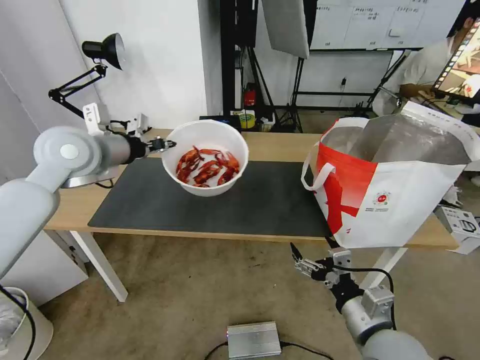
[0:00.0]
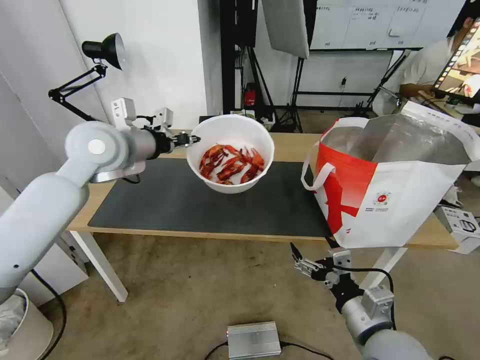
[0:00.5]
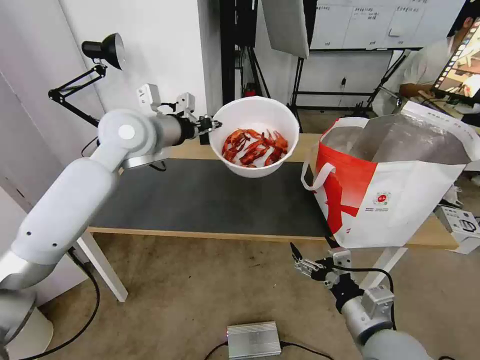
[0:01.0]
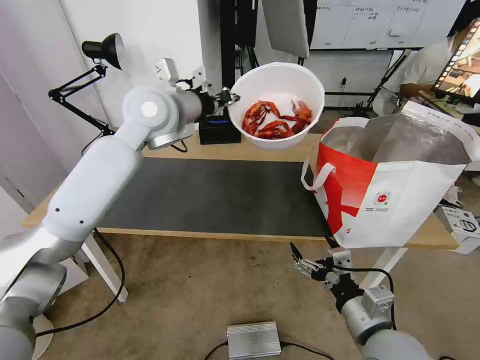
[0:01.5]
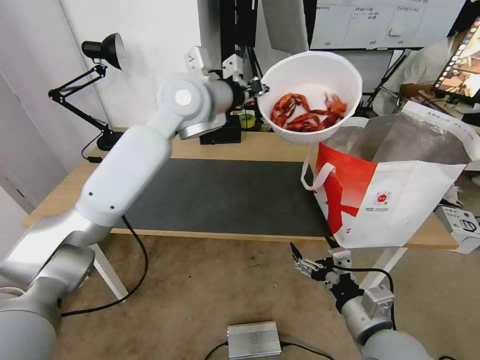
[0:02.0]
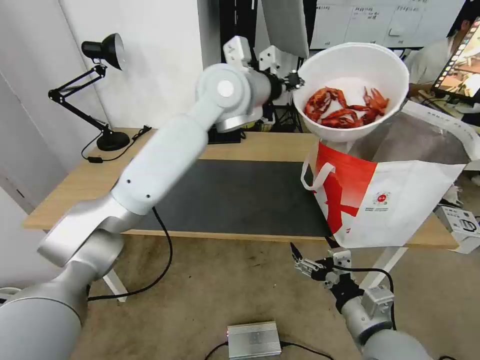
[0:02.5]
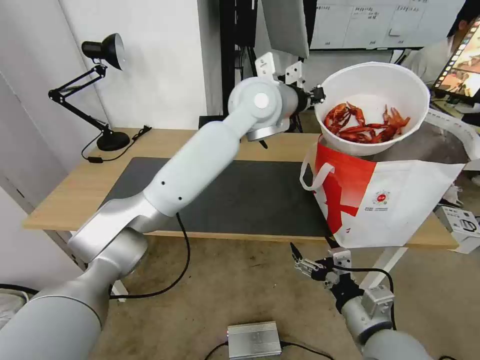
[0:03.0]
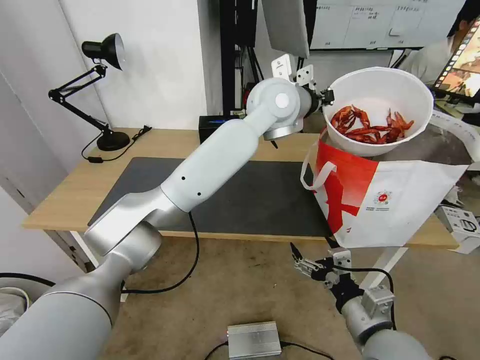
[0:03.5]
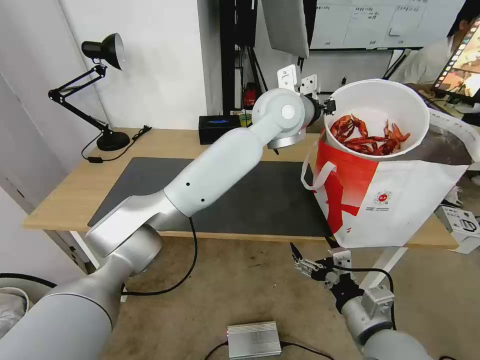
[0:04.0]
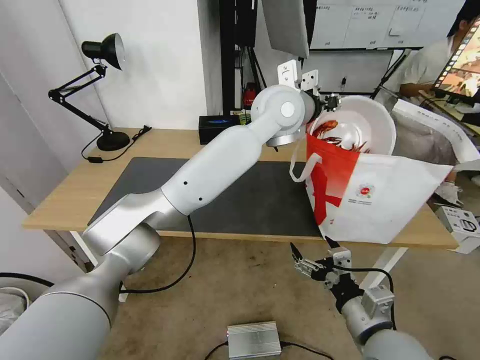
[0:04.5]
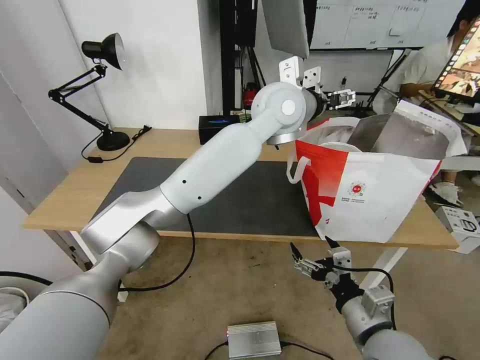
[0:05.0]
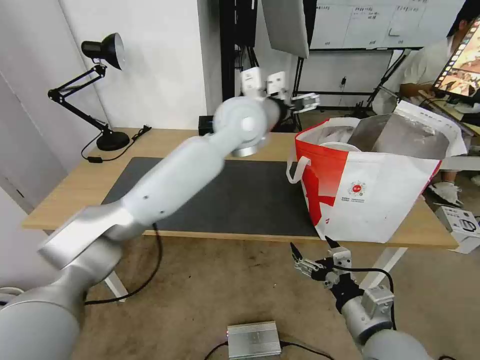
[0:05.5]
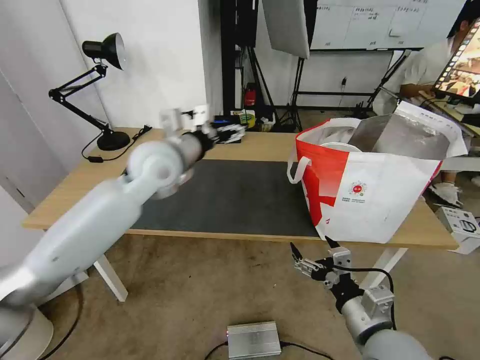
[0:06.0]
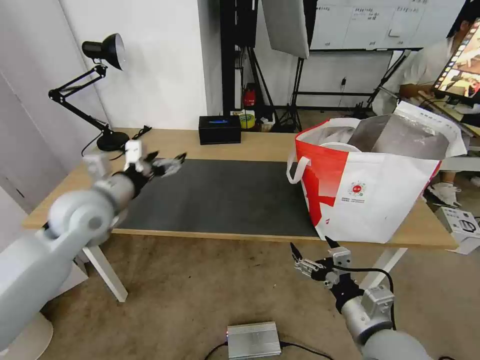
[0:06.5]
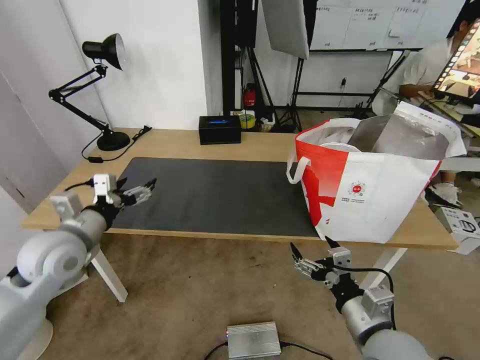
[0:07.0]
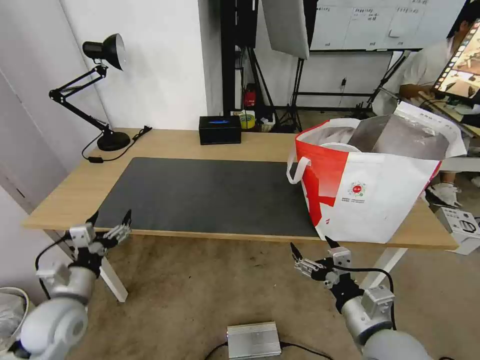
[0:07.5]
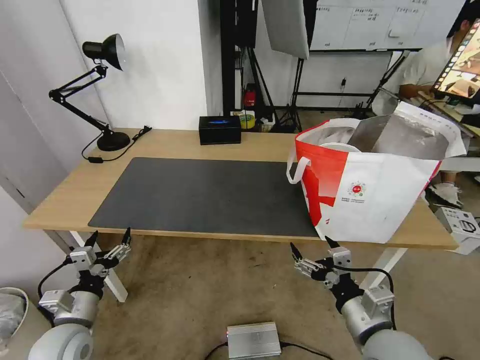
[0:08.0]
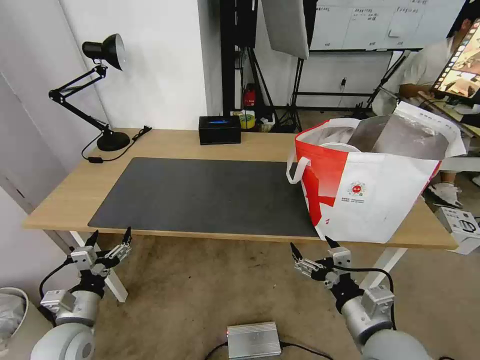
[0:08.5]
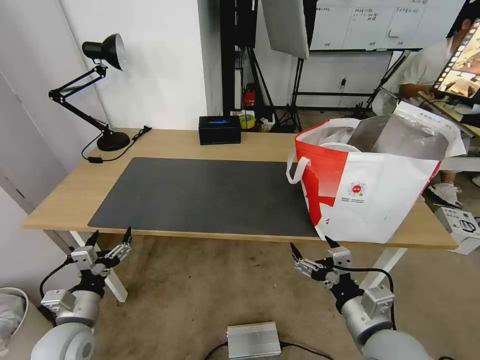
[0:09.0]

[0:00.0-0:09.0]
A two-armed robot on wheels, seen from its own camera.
Task of the whole recording: Pick up the trash from the table and place it into the takeout bag.
0:00.0 to 0:02.0: The left gripper shifts roughly 20 cm to the right.
0:02.0 to 0:04.5: The left gripper is displaced to the right by approximately 15 cm, and opens.
0:04.5 to 0:07.0: The left gripper goes roughly 50 cm to the left, downward and backward, and opens up.
0:07.0 to 0:09.0: The left gripper goes approximately 20 cm downward and backward.

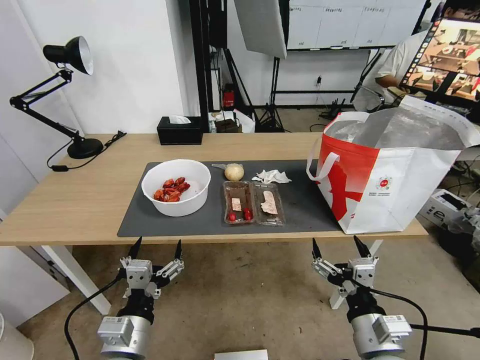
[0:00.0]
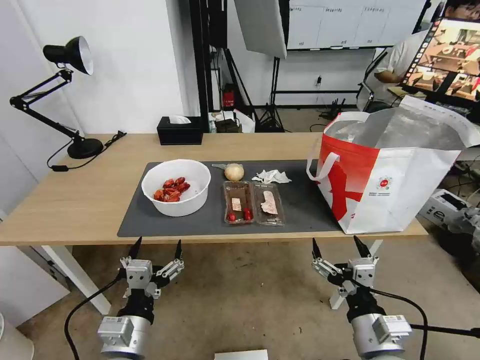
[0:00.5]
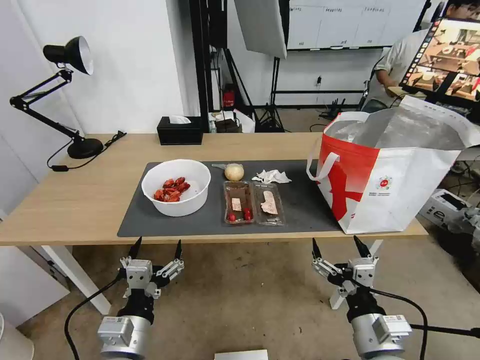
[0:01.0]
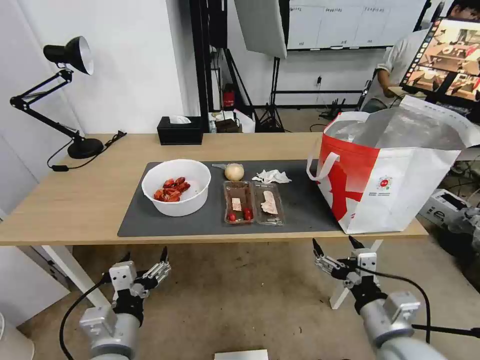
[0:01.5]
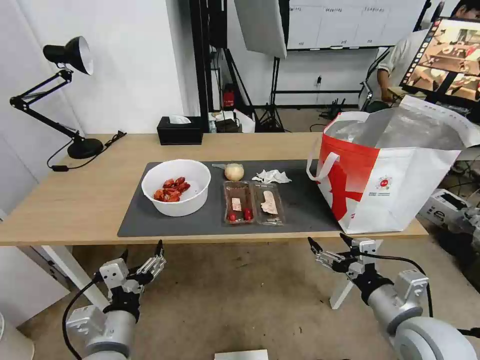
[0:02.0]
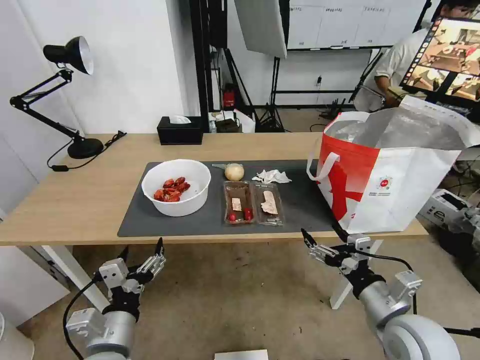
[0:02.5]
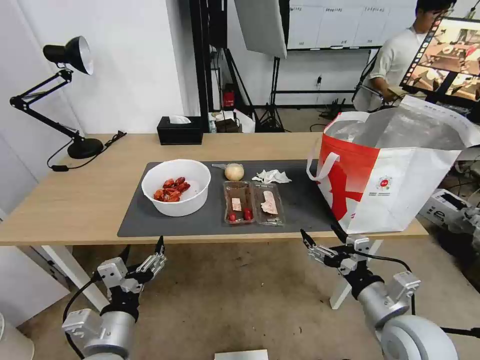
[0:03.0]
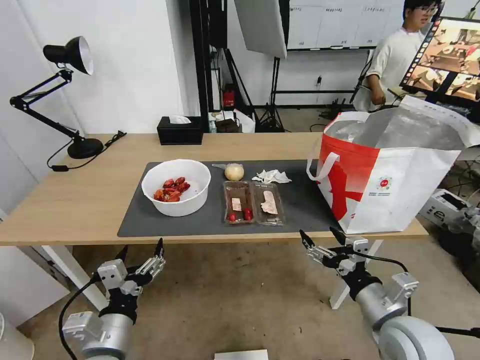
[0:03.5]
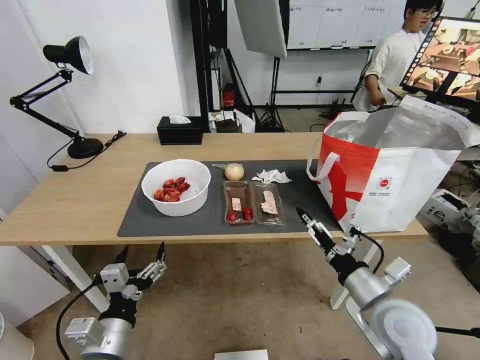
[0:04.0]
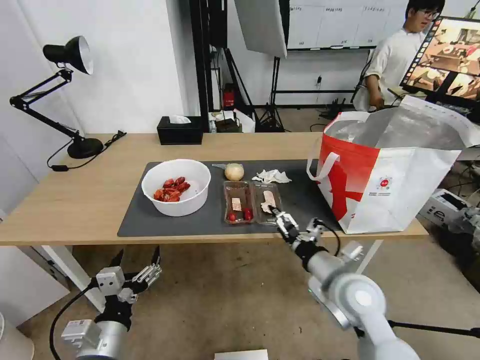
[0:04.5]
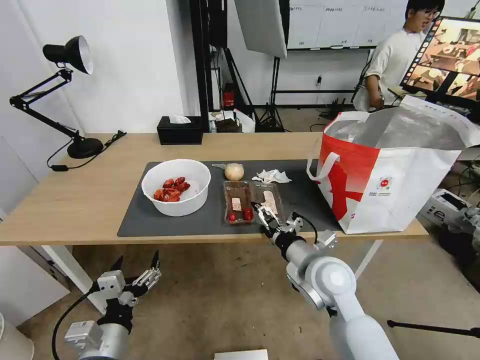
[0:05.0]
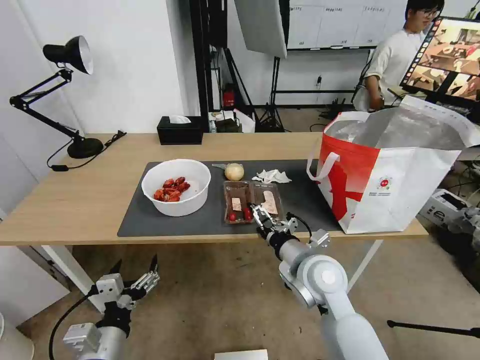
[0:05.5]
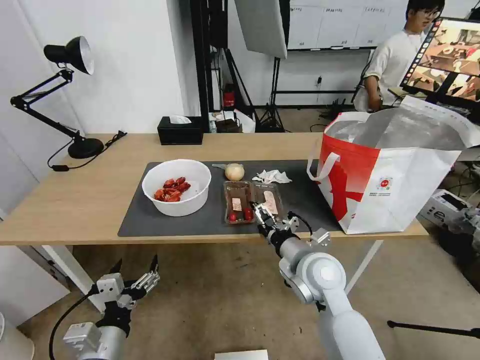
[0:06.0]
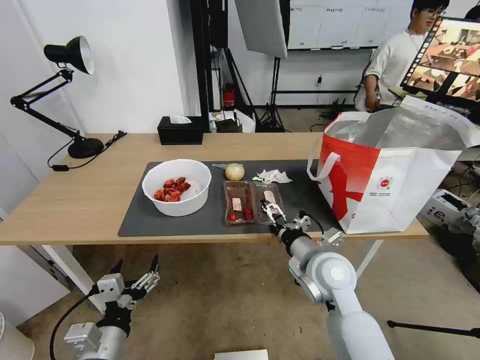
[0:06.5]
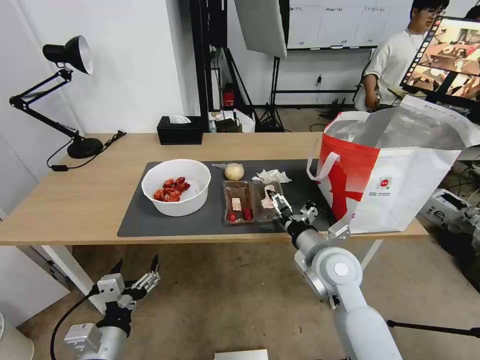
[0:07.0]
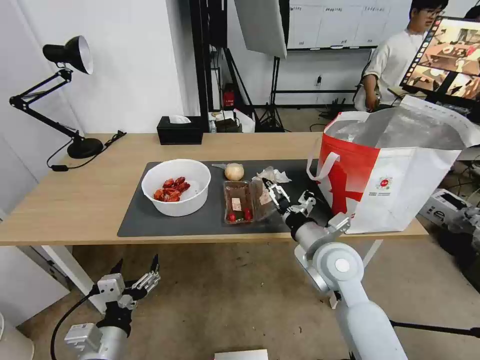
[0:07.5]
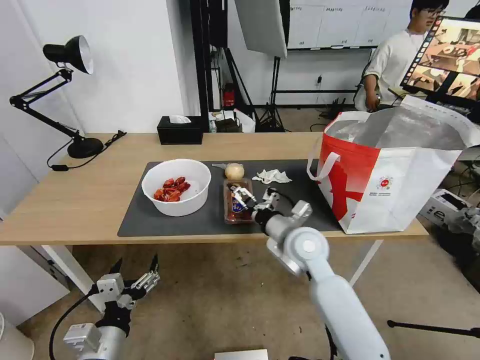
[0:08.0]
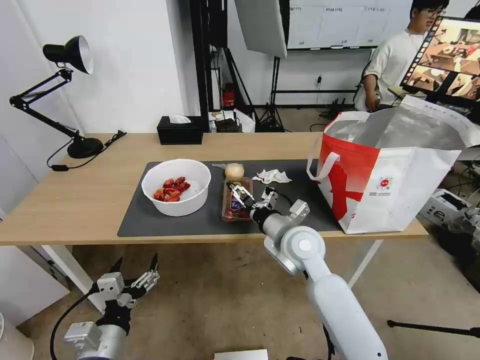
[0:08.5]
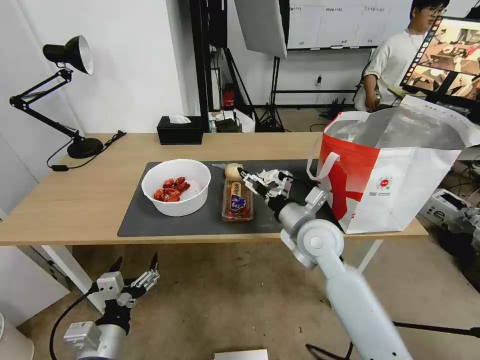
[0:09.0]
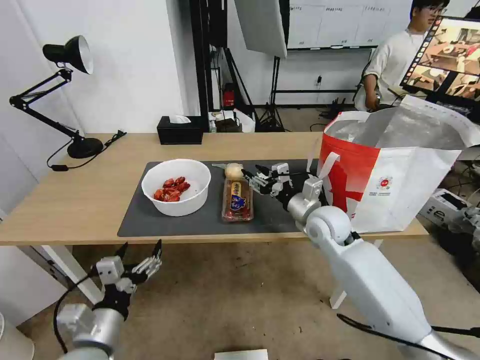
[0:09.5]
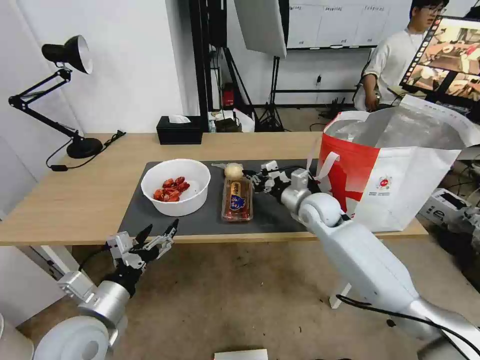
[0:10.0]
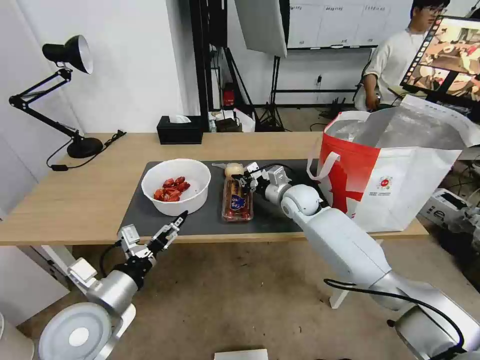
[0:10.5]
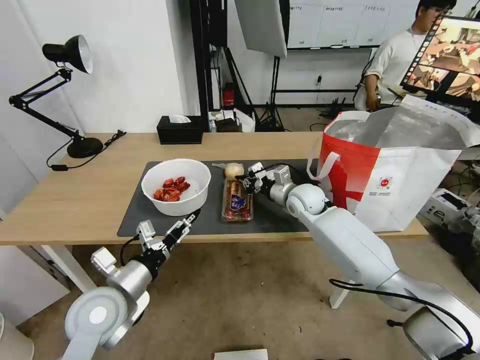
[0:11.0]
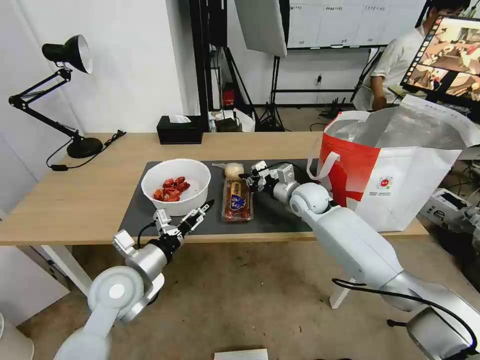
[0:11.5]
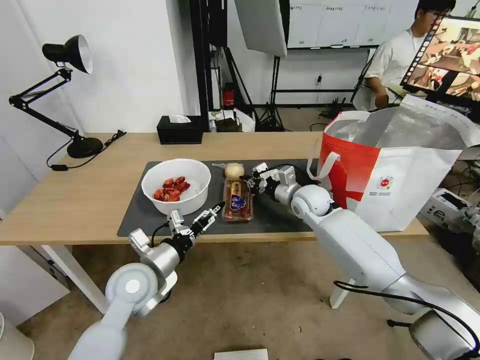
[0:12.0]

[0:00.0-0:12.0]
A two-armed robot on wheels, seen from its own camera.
Task of the whole recording: Pick up the trash from the table and place it into the takeout bag.
0:04.0 to 0:06.0: The right gripper goes about 15 cm to the left and forward.
0:06.0 to 0:08.0: The right gripper is displaced forward by roughly 5 cm.
0:08.0 to 0:10.0: The left gripper heads upward and forward, covering some 10 cm. Meanwhile the right gripper heads forward and to the right, covering some 15 cm, and closes.
0:10.0 to 0:12.0: The left gripper moves forward and to the right, about 10 cm.

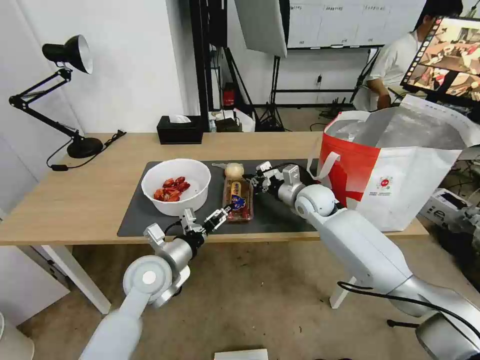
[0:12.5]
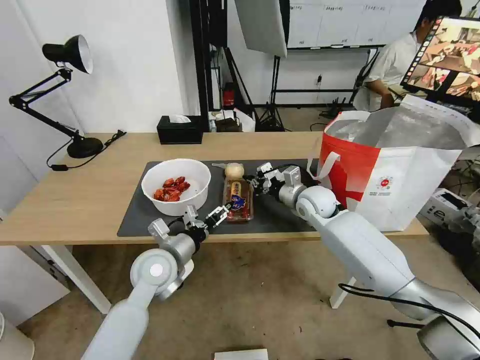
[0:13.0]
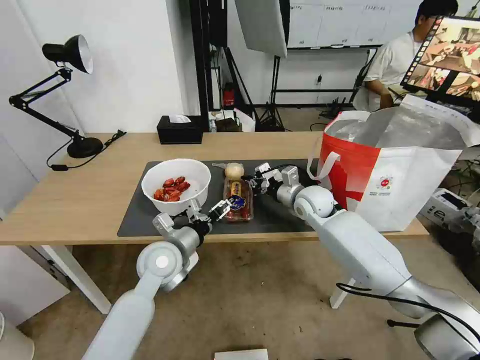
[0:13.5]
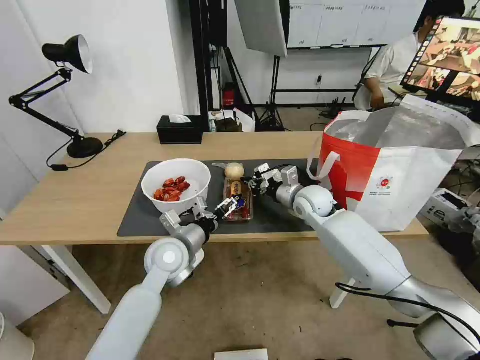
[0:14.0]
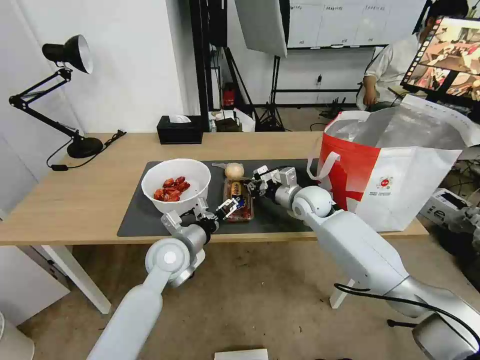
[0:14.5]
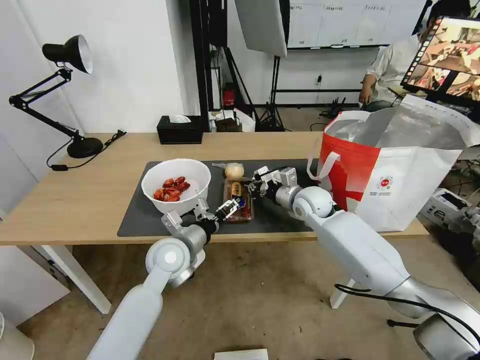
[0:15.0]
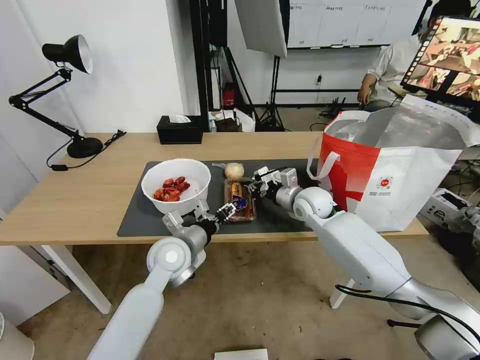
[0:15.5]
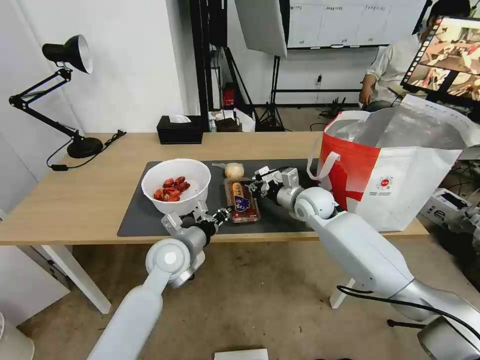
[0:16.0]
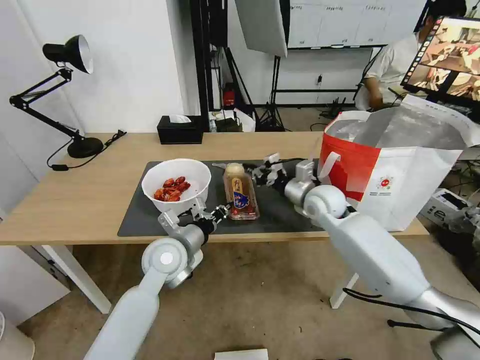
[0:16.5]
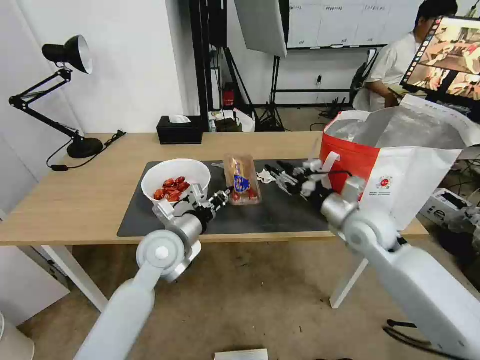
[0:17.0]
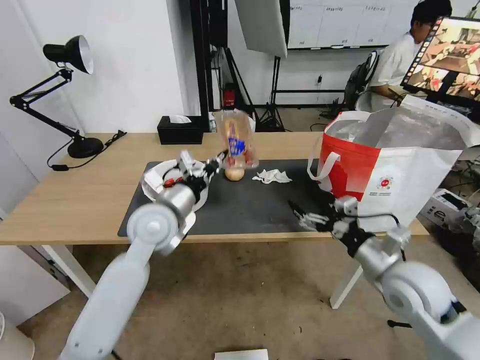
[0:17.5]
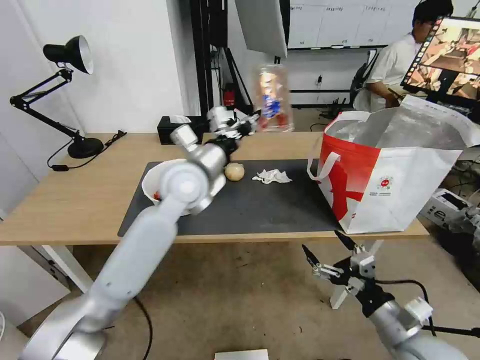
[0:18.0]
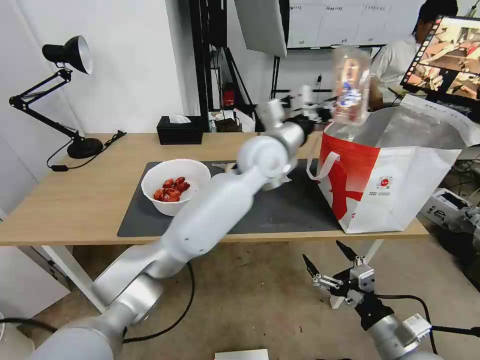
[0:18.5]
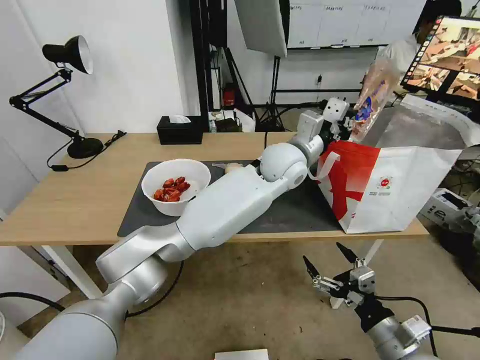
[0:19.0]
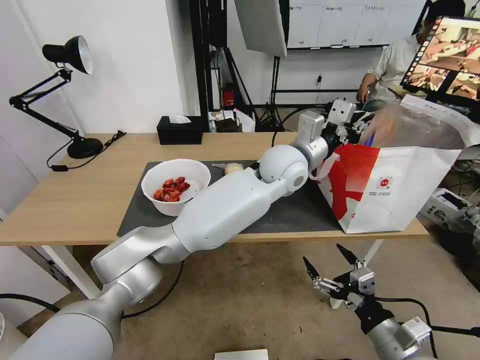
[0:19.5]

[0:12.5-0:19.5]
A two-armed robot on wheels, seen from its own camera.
Task of the whole recording: Pick up the trash from the table and place it into the takeout bag.
0:12.5 to 0:14.5: The left gripper moves roughly 5 cm.
0:14.5 to 0:16.0: The left gripper closes.
0:16.0 to 0:17.5: The right gripper goes about 25 cm backward and to the right, and opens its fingers; the left gripper moves upward, about 10 cm.
0:17.5 to 0:19.5: The right gripper goes roughly 15 cm backward and downward, while the left gripper heads to the right, covering some 25 cm.
